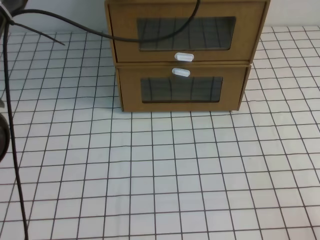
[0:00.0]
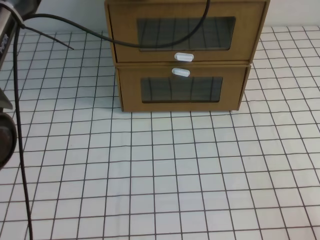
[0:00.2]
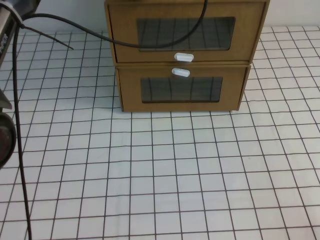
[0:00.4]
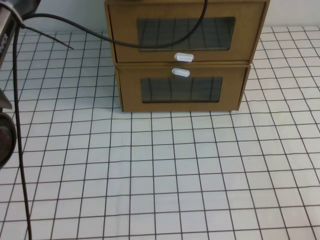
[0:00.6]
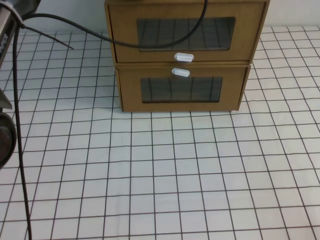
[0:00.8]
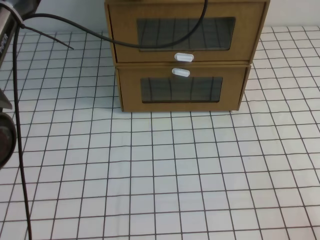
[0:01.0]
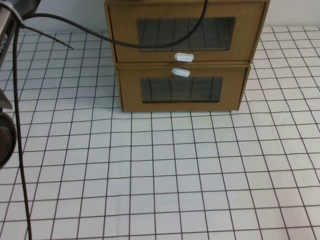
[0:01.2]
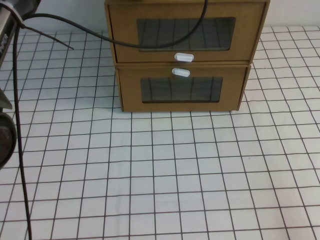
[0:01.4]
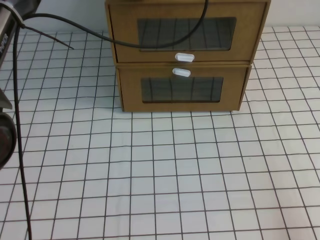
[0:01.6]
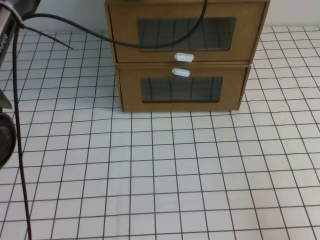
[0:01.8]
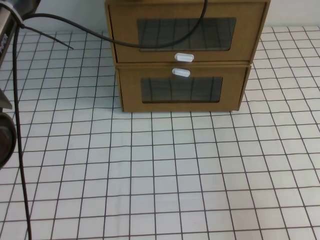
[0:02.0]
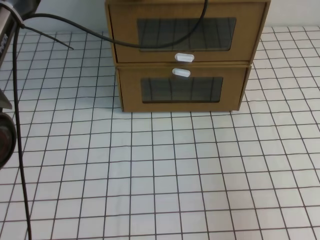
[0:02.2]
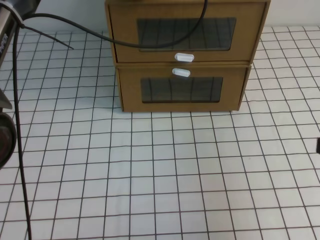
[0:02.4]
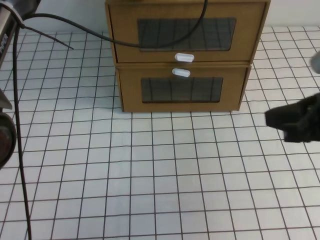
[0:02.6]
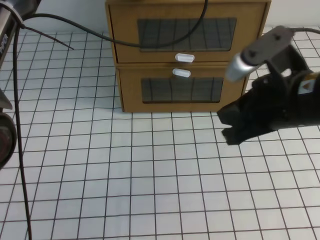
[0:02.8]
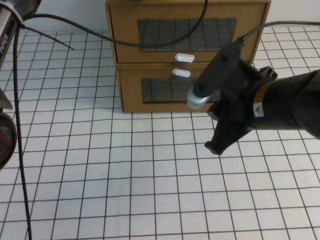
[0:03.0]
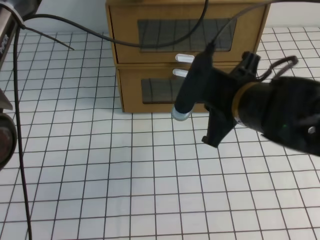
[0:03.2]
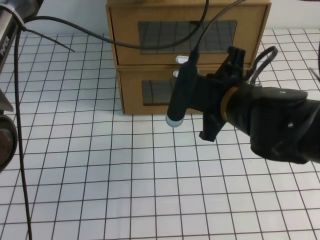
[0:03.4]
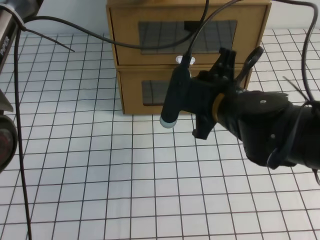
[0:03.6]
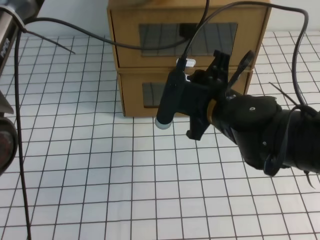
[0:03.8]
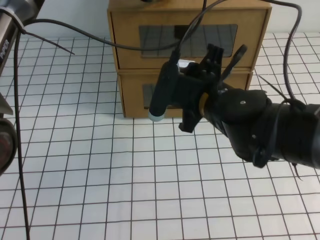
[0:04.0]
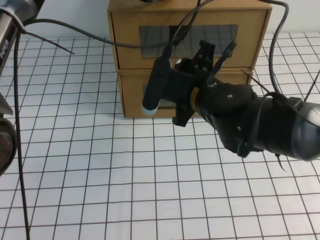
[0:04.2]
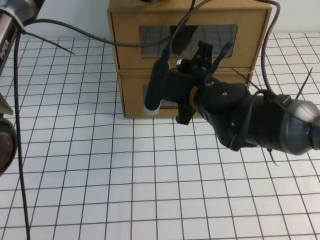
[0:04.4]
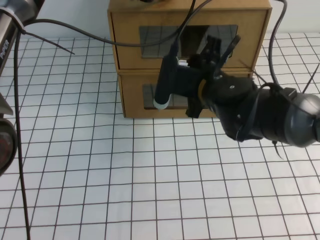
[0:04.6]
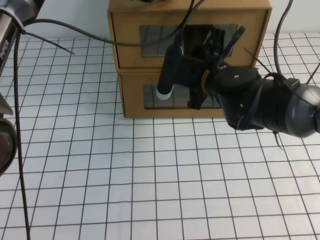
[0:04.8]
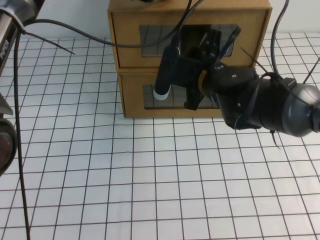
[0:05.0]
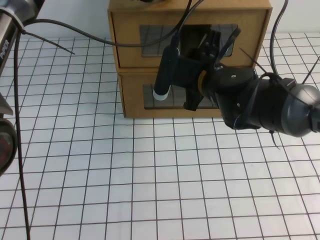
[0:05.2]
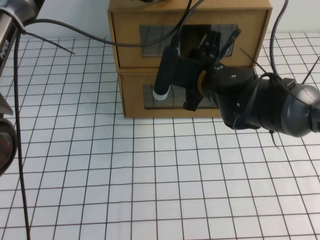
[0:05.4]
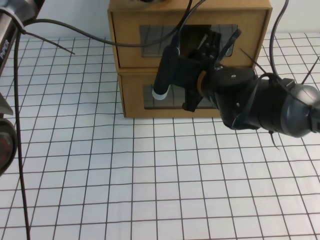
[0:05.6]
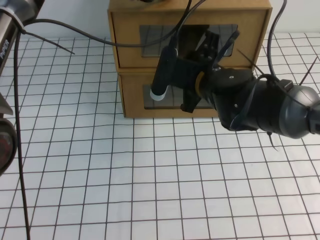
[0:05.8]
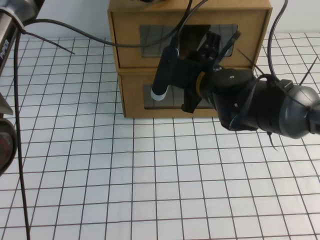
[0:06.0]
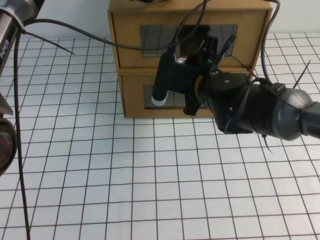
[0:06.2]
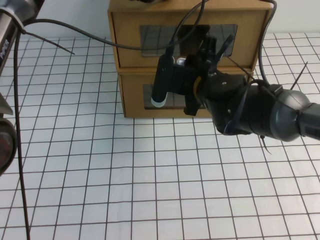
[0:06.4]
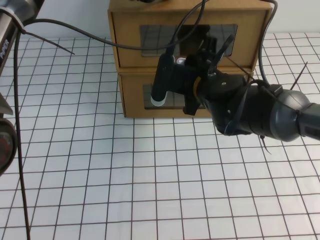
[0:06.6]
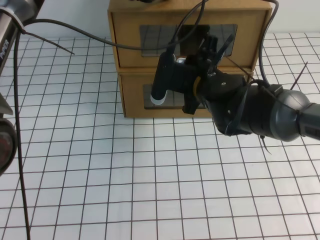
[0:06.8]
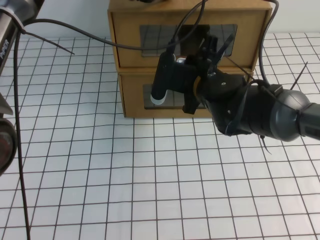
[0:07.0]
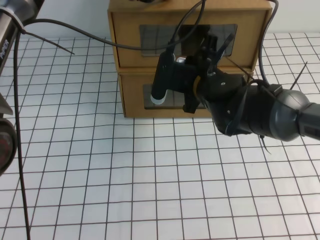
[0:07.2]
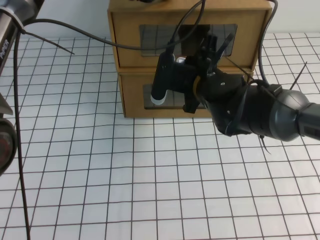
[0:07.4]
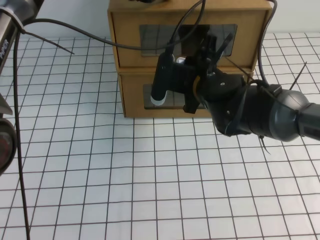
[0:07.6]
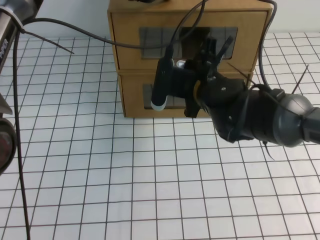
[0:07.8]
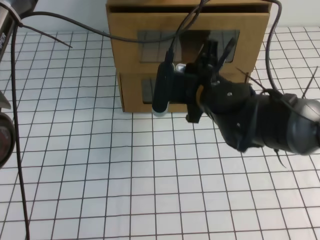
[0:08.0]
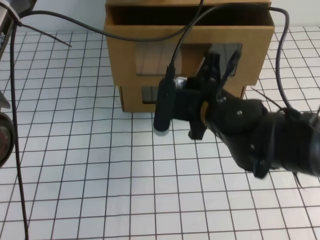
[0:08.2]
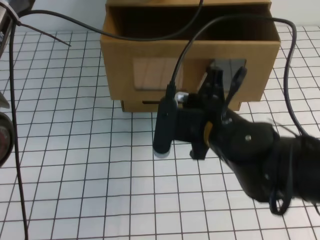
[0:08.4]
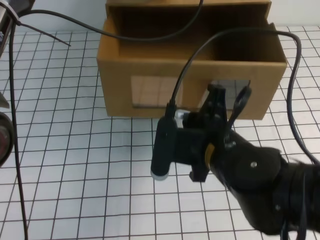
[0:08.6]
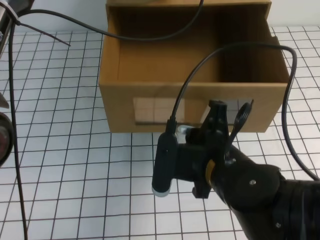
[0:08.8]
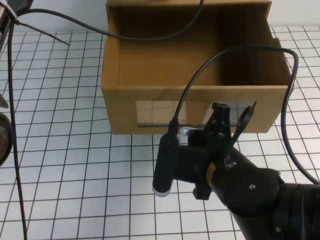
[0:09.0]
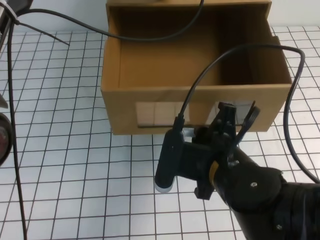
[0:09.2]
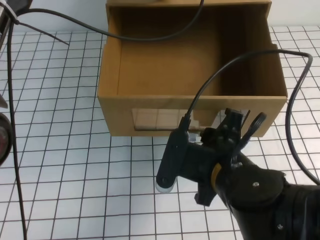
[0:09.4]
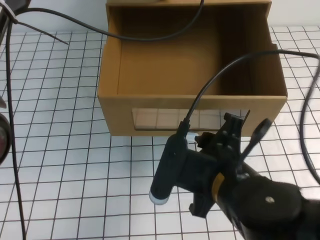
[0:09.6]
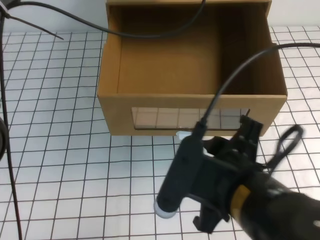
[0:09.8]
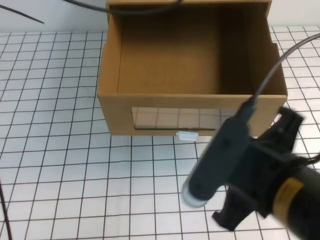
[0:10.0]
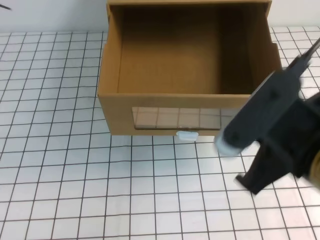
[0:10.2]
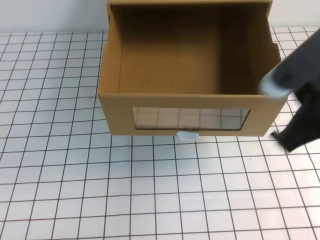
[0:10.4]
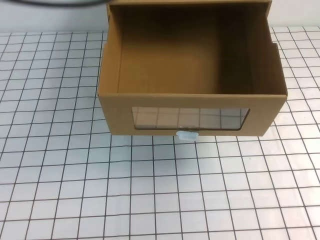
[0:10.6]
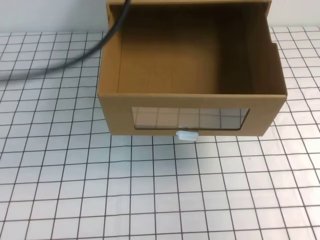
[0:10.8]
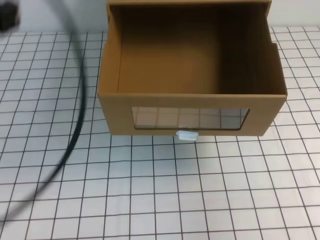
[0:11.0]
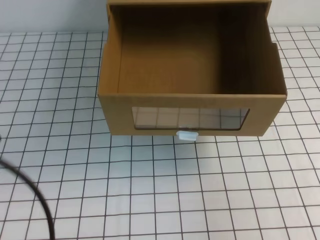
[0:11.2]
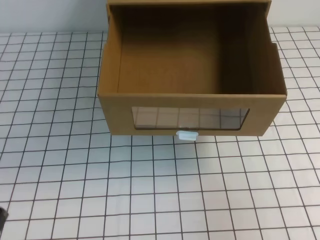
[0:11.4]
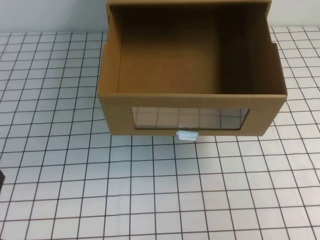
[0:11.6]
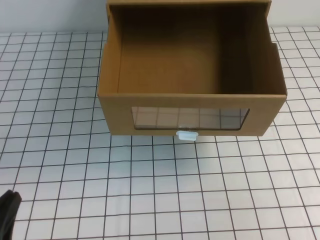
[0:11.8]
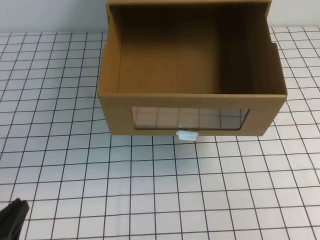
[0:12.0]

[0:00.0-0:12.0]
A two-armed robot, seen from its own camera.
Task of the whole recording: open the shoebox on the white tablecloth.
0:01.6 to 0:03.0: The right gripper travels forward, to the left and upward by approximately 25 cm.
0:03.0 to 0:04.4: The right gripper shifts roughly 15 cm to the left, forward and downward, and opens.
0:04.4 to 0:06.0: The grippers move only a little.
0:06.0 to 0:07.6: The right gripper closes.
0:07.6 to 0:09.0: The right gripper travels backward by roughly 15 cm.
0:09.0 to 0:10.4: The right gripper heads upward, to the right and backward, covering approximately 15 cm, and opens, then closes once more. Meanwhile the left gripper moves upward and backward, about 15 cm.
0:10.4 to 0:12.0: The left gripper travels downward, backward and to the left by roughly 40 cm, while the right gripper goes some 15 cm to the right and downward.

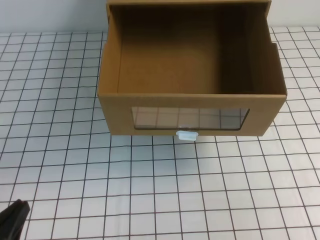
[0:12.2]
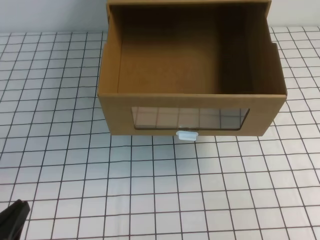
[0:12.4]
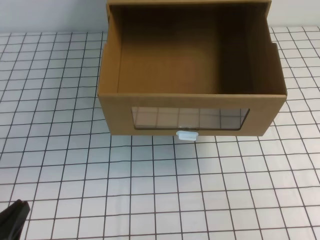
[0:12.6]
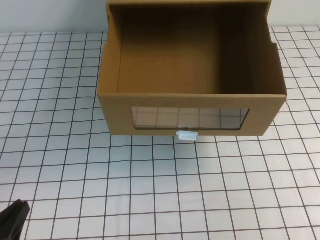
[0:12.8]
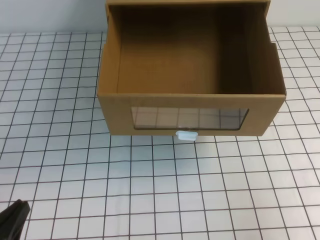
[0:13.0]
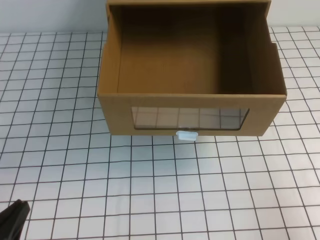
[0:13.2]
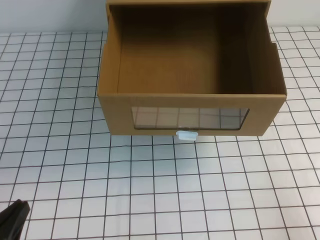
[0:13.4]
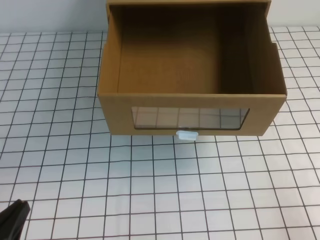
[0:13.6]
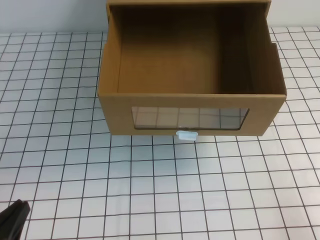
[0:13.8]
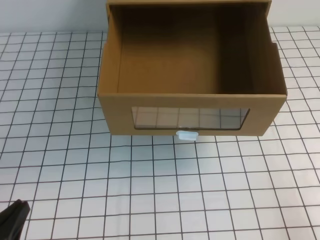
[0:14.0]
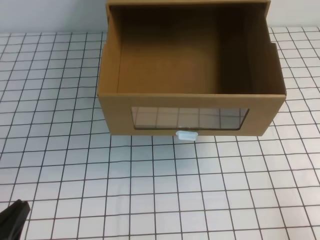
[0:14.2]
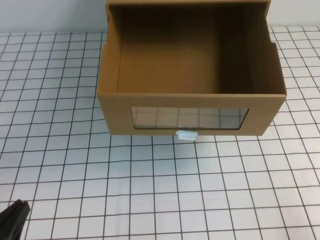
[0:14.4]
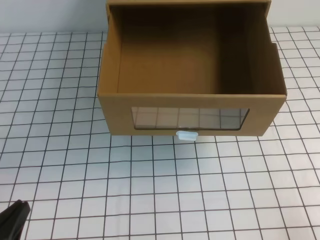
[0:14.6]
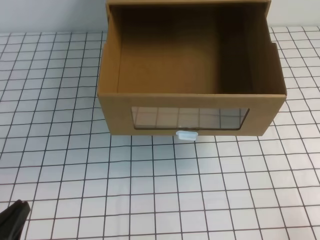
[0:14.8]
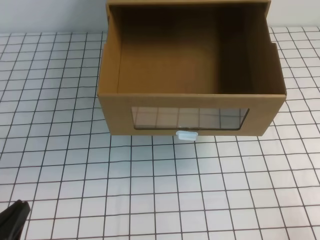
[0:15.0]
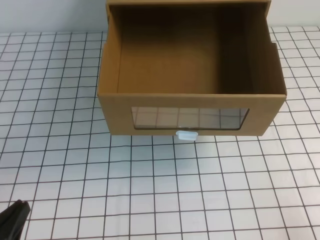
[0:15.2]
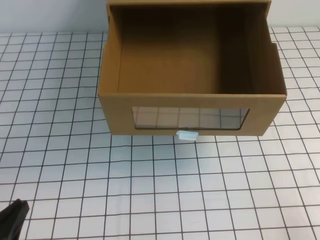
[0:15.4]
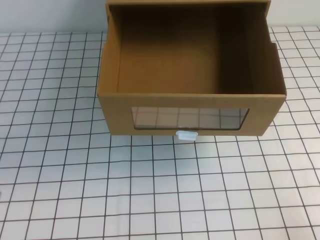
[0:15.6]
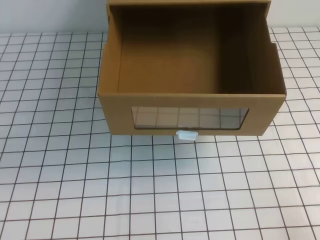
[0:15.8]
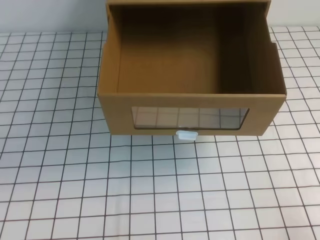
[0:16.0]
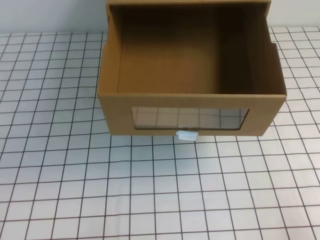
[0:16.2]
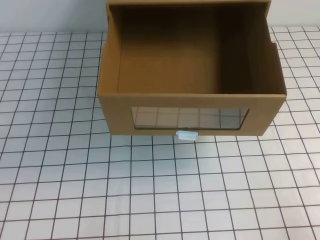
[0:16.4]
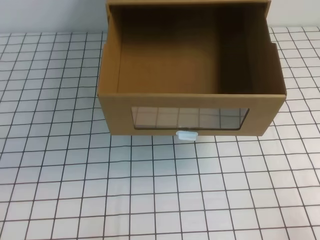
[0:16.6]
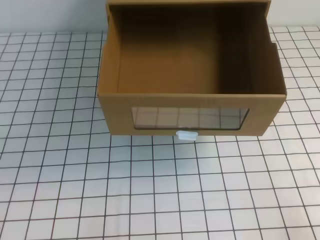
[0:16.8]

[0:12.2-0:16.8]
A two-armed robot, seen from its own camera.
Task of the whole recording: open the shoebox on the white tablecloth.
Step, 0:12.2 to 0:16.8: Open the shoe box.
0:15.2 to 0:16.8: The grippers stay close to where they were, moving slightly.

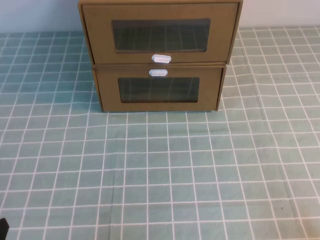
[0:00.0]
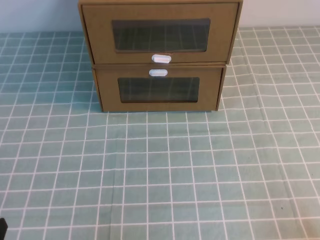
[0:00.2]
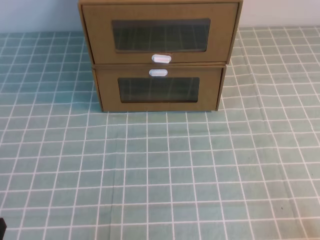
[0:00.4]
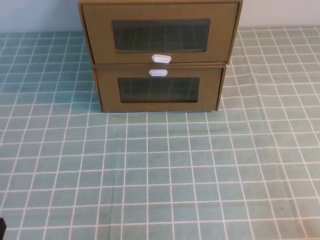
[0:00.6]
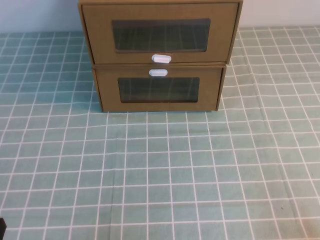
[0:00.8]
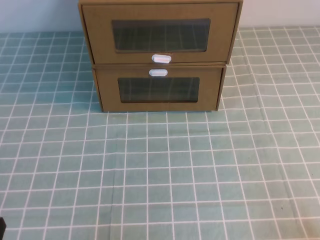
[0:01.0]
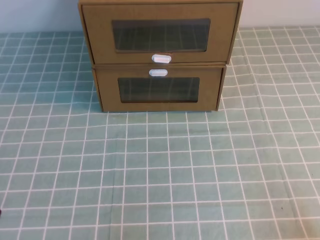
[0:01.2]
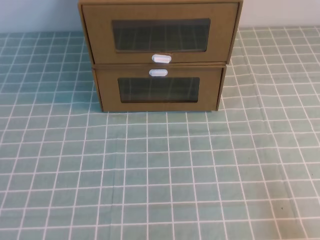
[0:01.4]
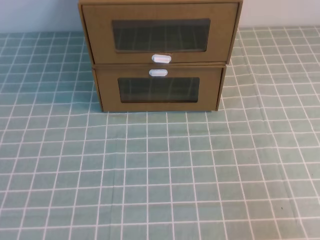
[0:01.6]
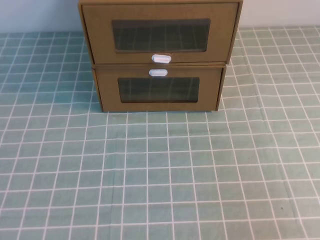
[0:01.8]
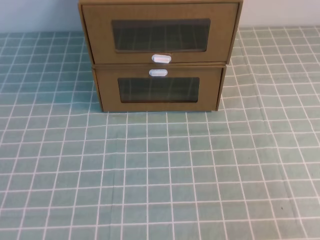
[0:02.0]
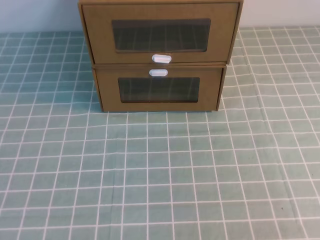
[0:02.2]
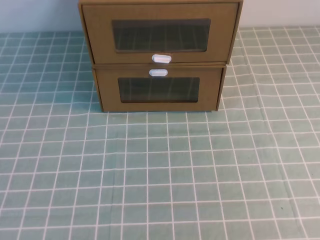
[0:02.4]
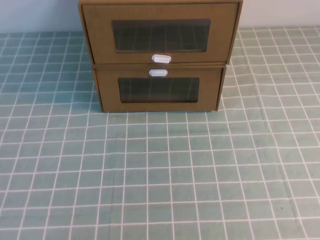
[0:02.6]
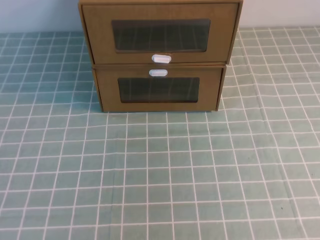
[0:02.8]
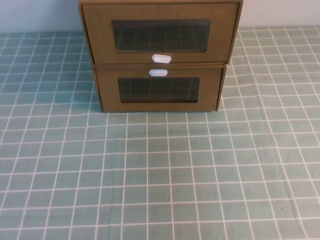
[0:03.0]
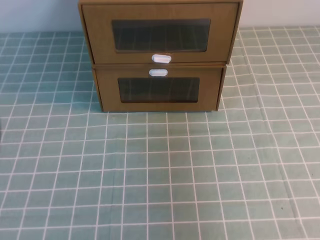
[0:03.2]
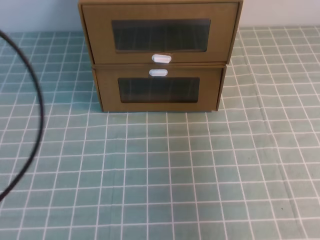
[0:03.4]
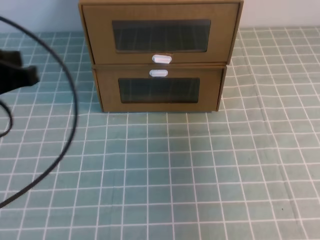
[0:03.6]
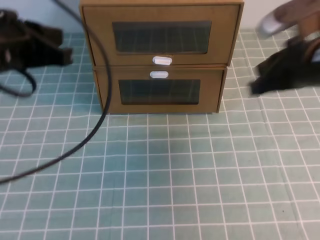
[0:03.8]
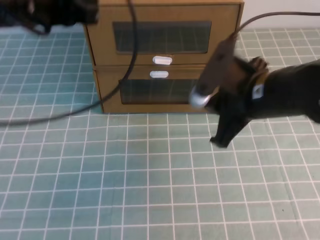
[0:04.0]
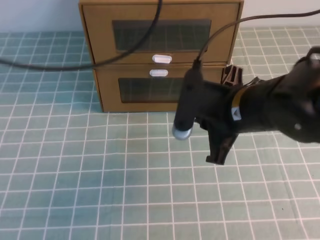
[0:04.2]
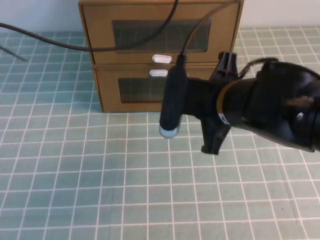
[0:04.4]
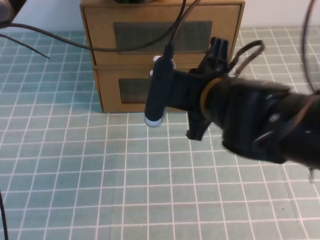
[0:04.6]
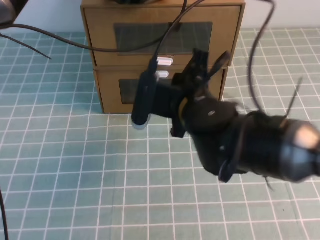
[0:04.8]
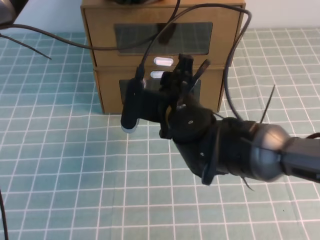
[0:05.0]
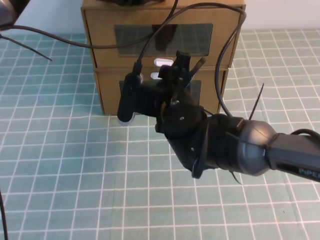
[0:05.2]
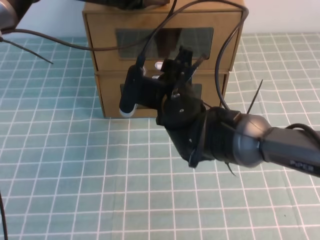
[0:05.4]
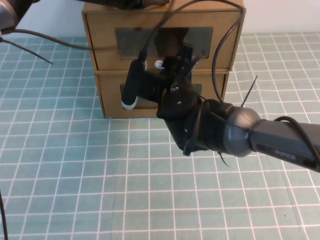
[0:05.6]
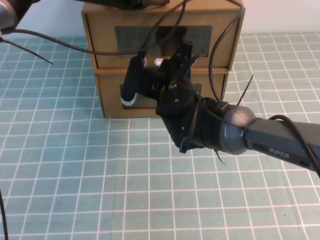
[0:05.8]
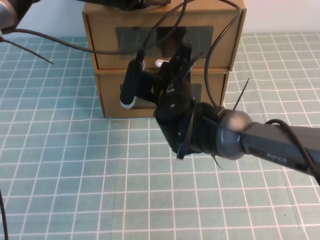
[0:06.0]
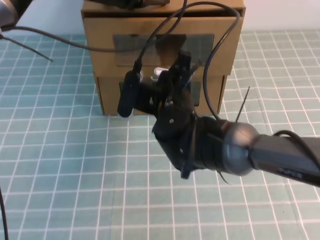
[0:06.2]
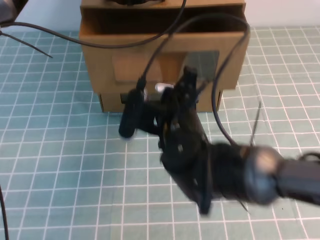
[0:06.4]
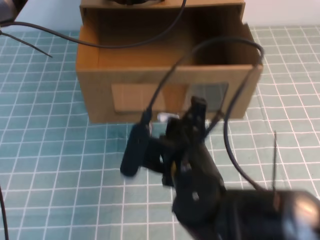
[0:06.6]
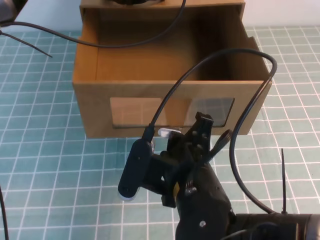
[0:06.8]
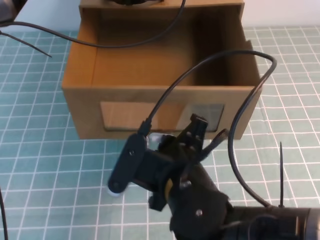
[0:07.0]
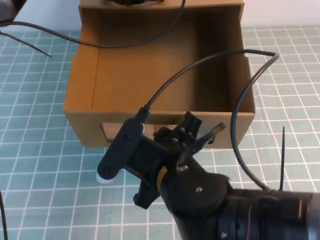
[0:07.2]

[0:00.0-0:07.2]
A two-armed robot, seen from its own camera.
Task of the whole recording: open the shoebox on the cyan tablecloth.
0:01.4 to 0:02.8: The right gripper shifts some 30 cm upward.
0:02.8 to 0:04.4: The right gripper heads to the left, forward and downward, covering some 40 cm, while the left gripper shifts roughly 40 cm forward and to the right.
0:04.4 to 0:05.8: The left gripper moves approximately 5 cm, while the right gripper goes approximately 15 cm forward, to the left and downward, and opens up.
0:05.8 to 0:07.2: The right gripper shifts approximately 20 cm backward, and closes and opens again.
